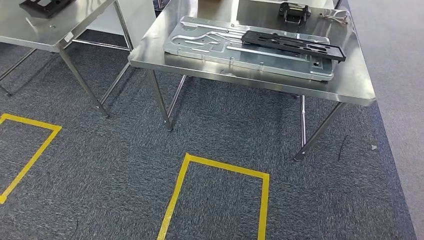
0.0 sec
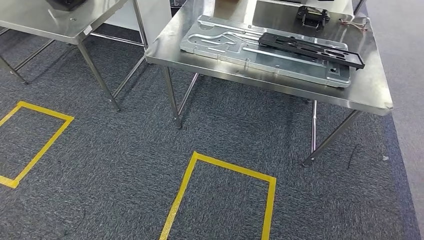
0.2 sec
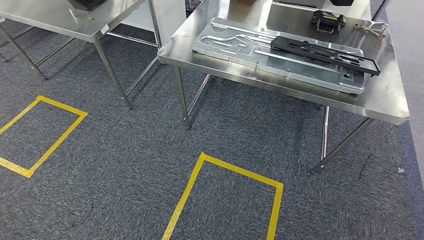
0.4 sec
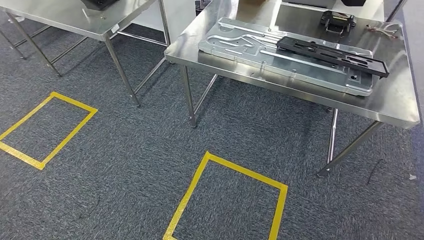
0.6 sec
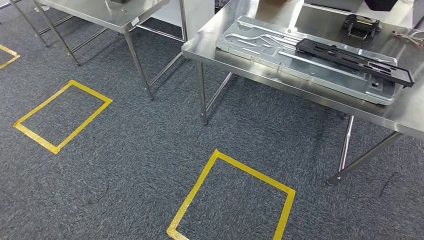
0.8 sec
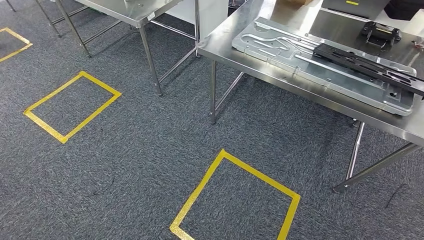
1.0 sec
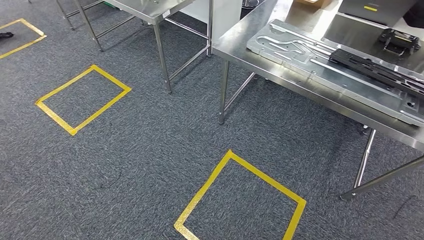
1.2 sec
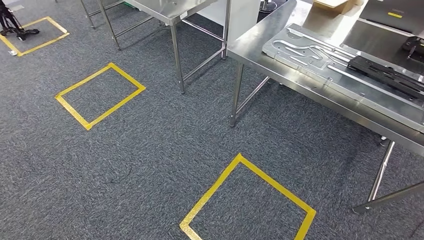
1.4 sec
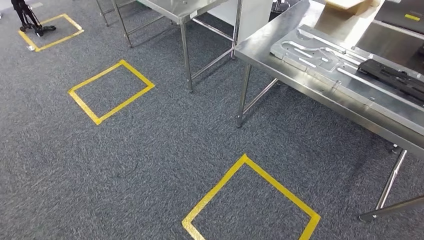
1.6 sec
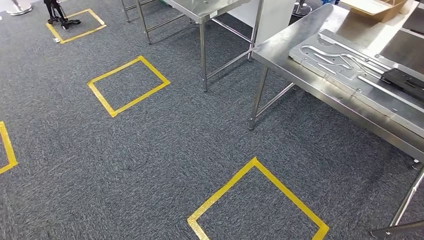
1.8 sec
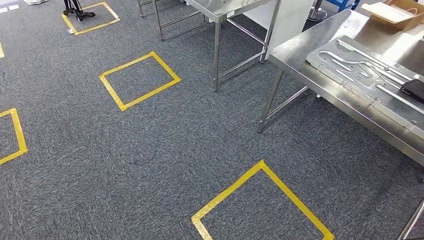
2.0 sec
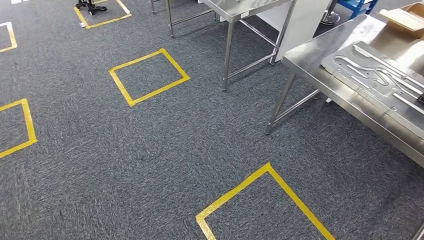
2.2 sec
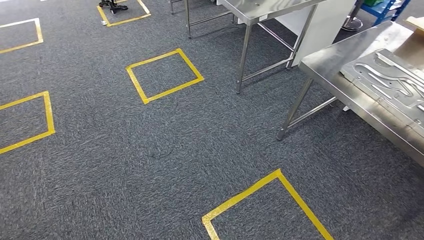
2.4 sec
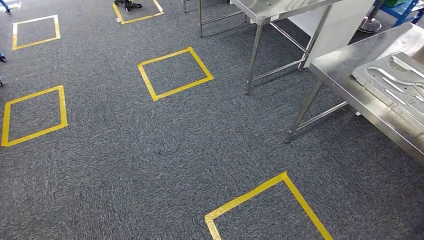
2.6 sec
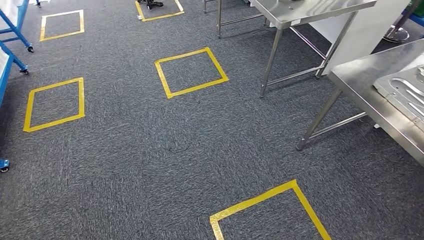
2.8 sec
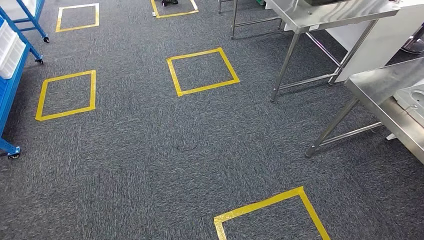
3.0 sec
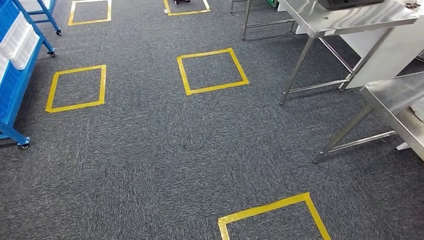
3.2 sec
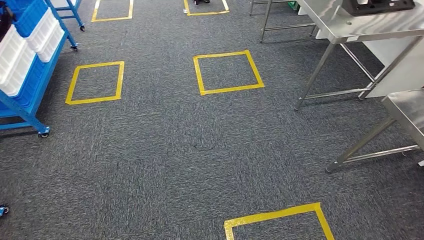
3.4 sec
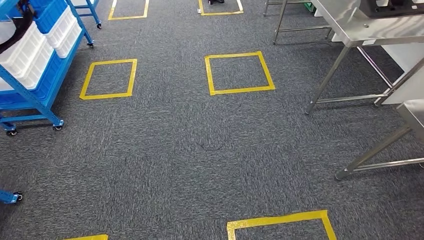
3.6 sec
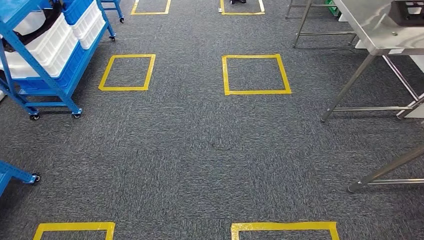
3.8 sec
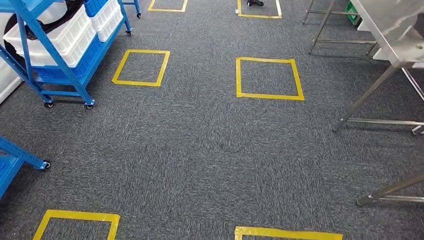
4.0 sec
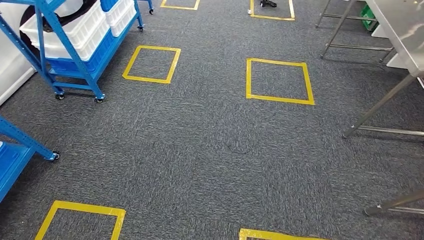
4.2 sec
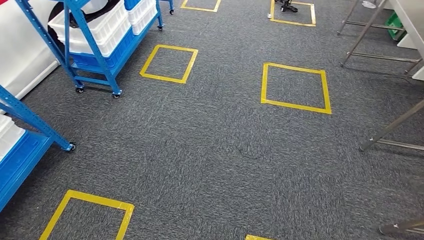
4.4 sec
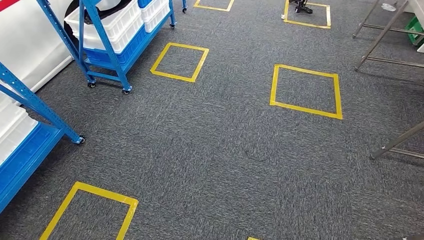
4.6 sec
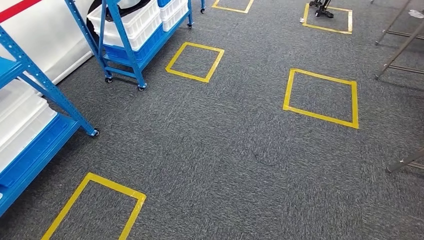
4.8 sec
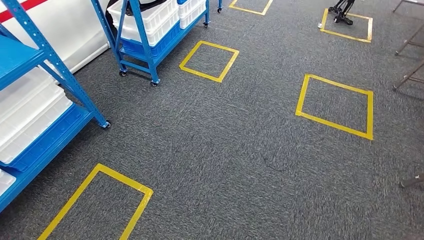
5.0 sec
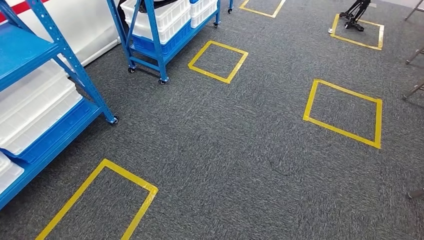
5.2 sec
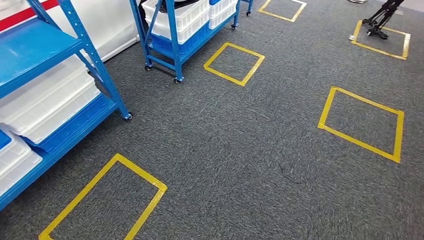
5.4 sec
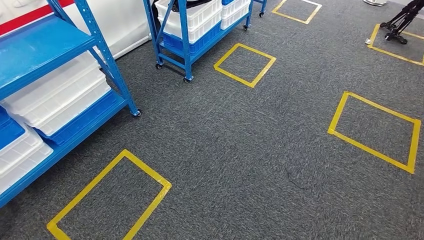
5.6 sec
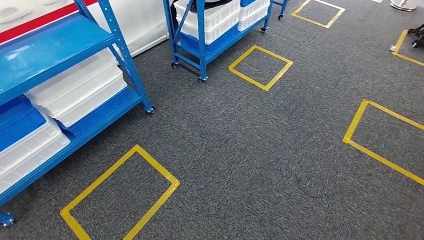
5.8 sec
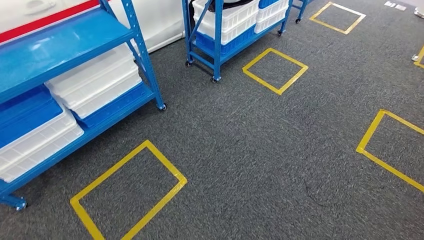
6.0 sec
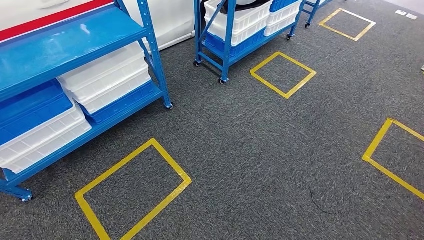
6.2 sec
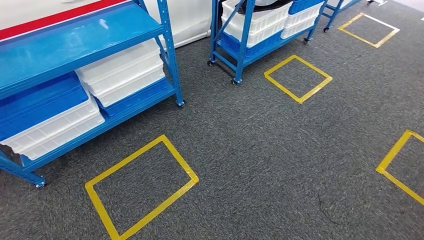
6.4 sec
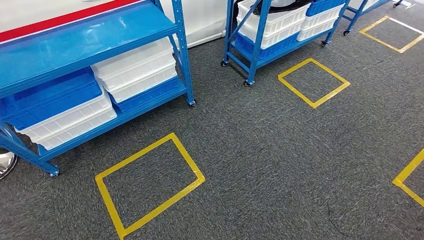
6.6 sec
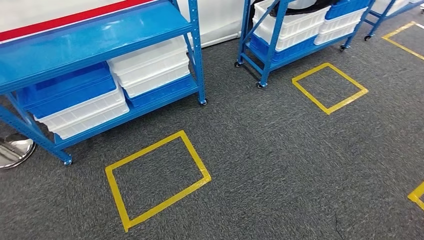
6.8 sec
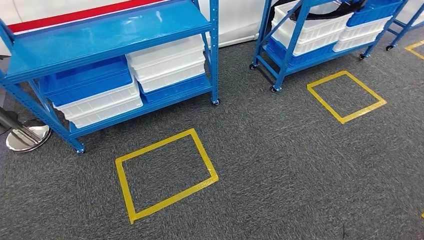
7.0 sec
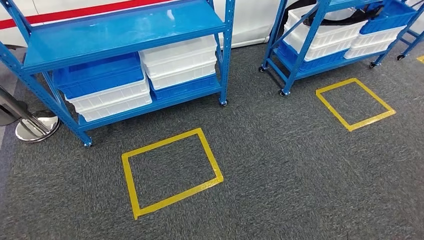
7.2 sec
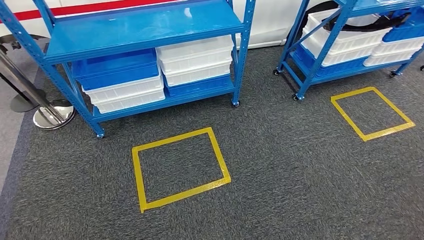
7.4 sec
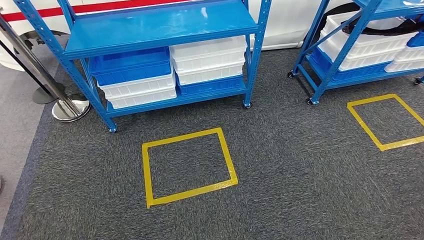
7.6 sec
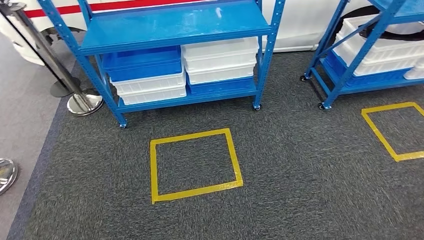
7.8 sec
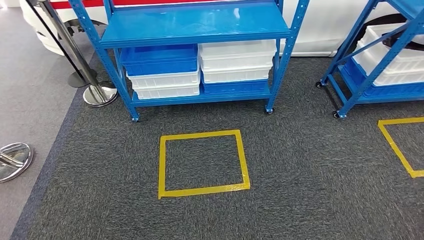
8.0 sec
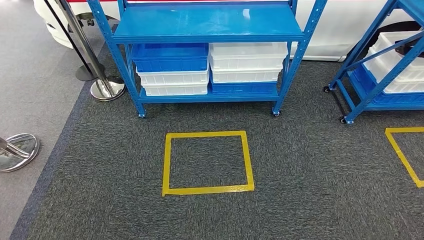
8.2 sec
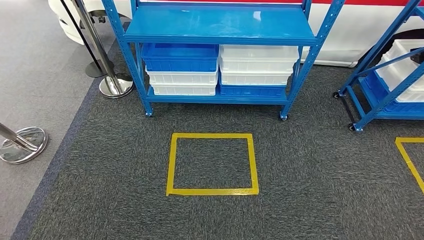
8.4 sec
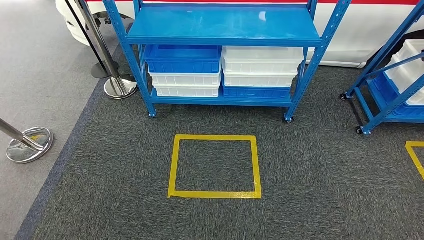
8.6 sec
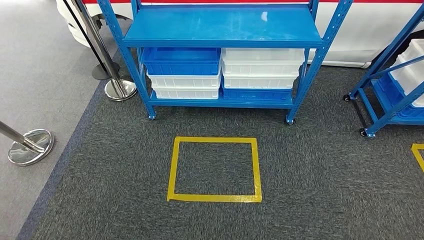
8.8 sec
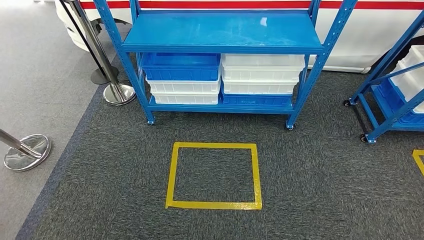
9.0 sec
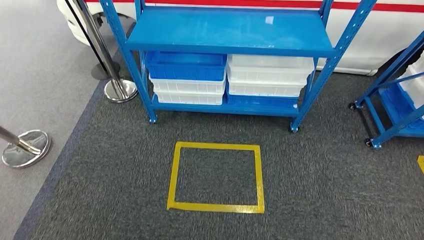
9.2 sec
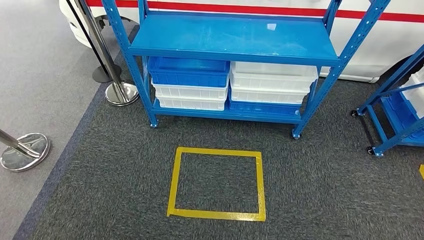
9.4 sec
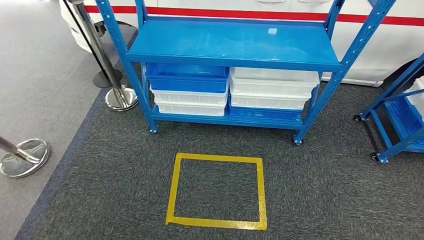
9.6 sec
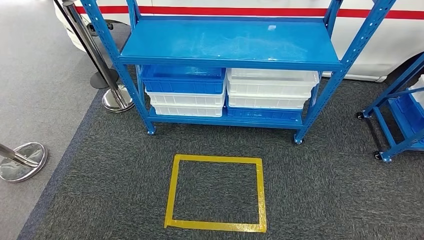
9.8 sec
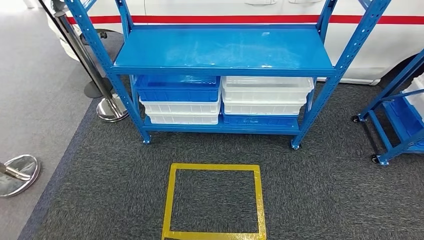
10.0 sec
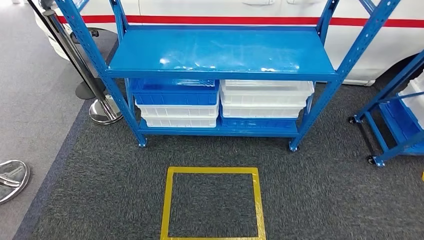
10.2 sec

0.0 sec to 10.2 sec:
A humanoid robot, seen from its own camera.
Step, 0.0 sec to 10.2 sec: Move to the initial position of the shelf.
